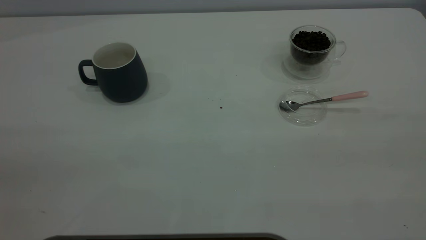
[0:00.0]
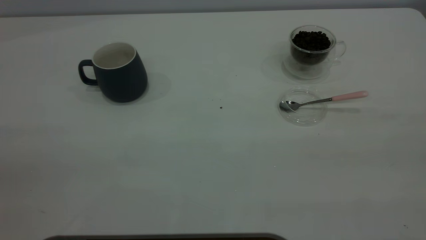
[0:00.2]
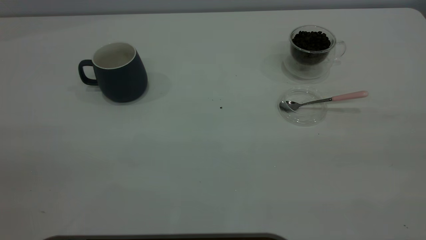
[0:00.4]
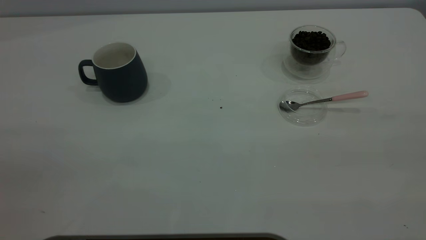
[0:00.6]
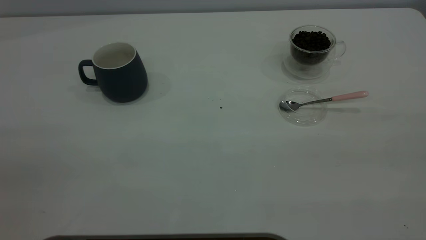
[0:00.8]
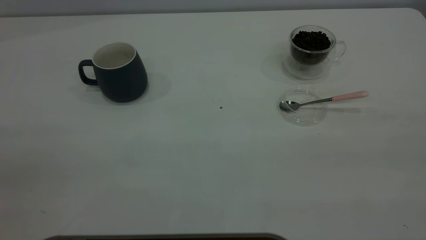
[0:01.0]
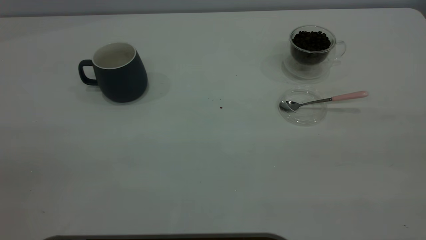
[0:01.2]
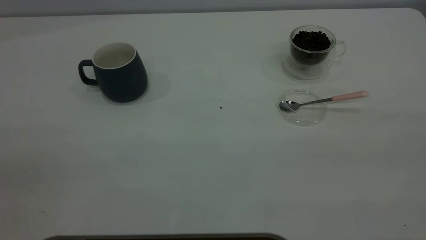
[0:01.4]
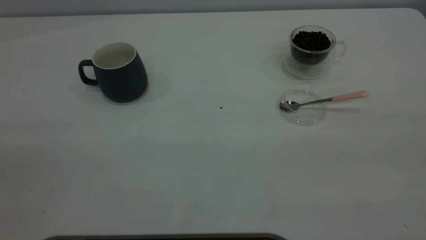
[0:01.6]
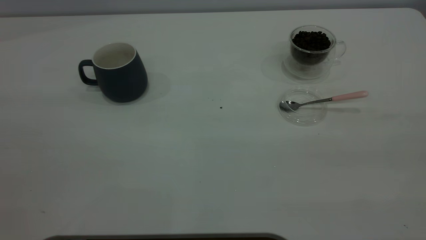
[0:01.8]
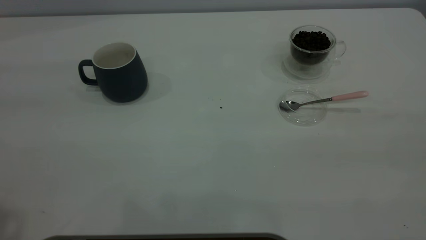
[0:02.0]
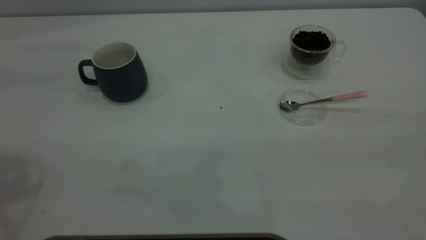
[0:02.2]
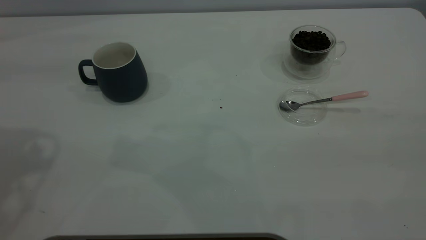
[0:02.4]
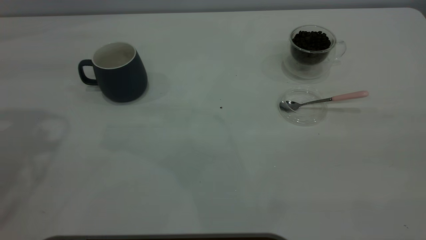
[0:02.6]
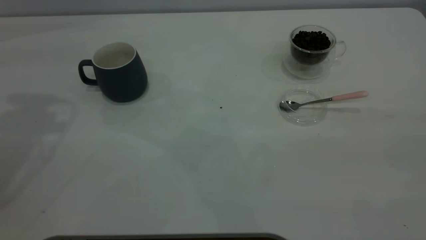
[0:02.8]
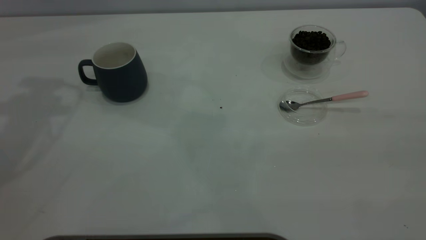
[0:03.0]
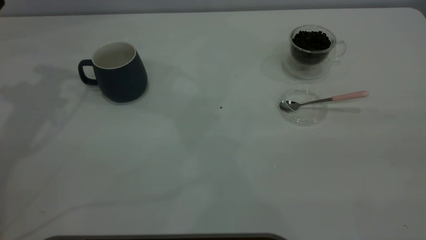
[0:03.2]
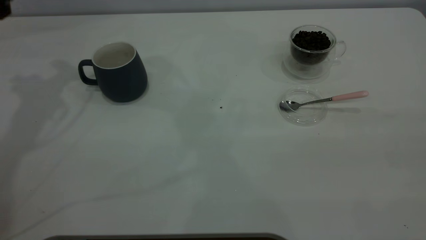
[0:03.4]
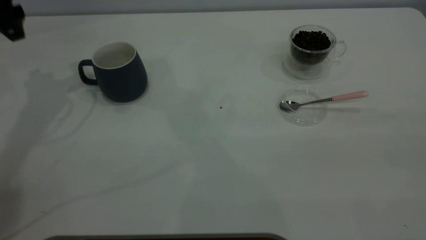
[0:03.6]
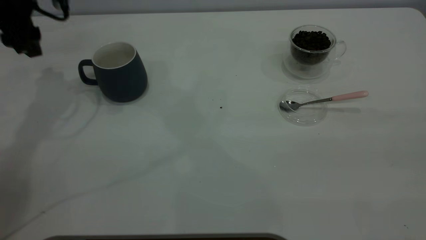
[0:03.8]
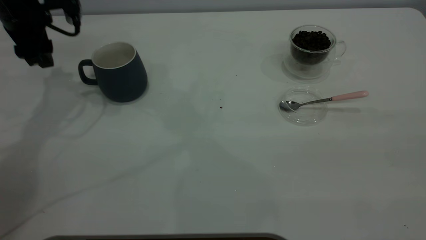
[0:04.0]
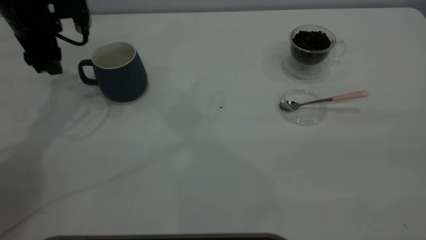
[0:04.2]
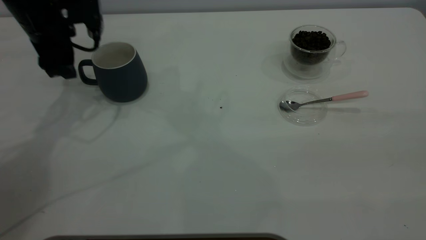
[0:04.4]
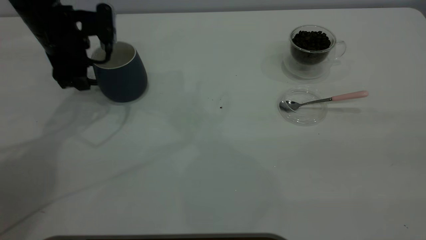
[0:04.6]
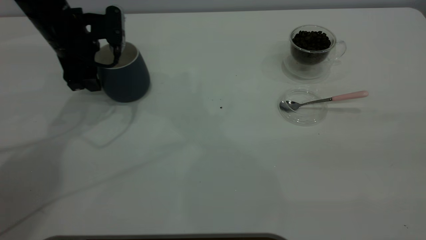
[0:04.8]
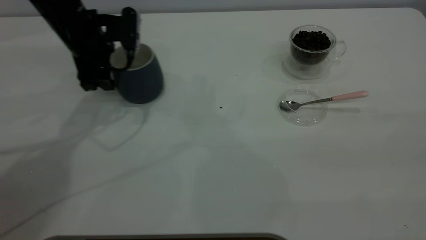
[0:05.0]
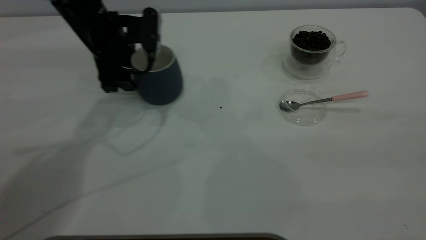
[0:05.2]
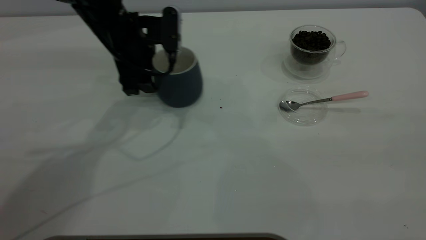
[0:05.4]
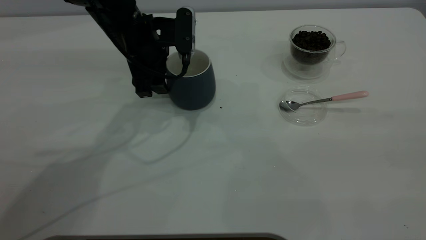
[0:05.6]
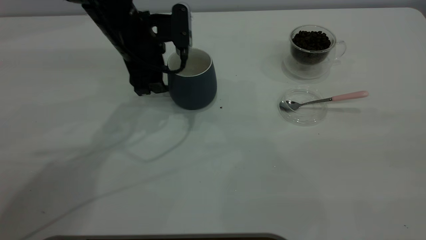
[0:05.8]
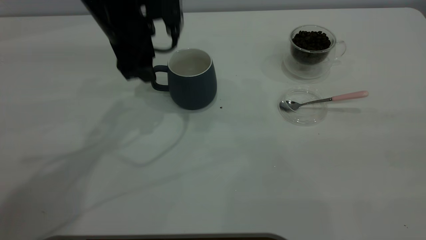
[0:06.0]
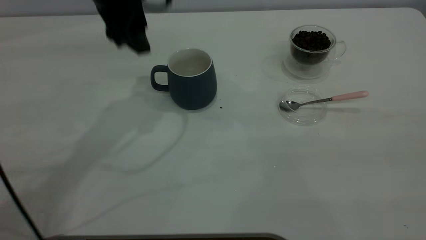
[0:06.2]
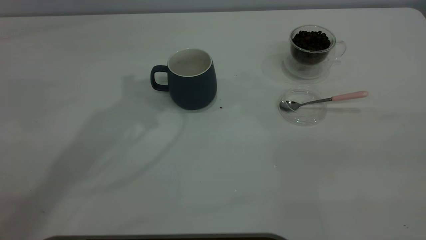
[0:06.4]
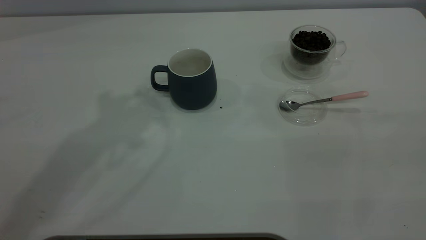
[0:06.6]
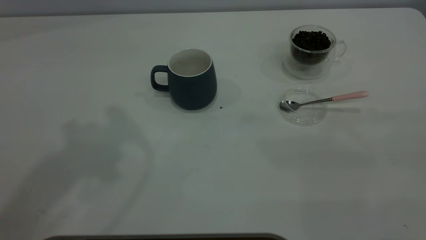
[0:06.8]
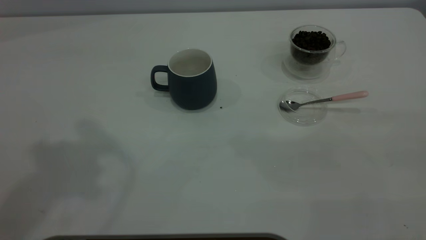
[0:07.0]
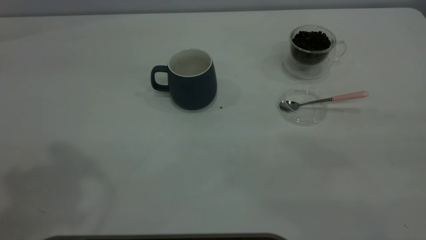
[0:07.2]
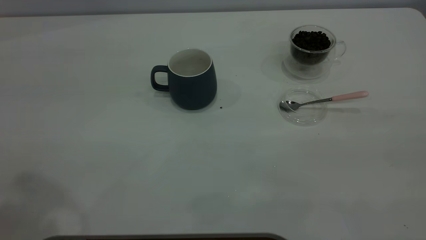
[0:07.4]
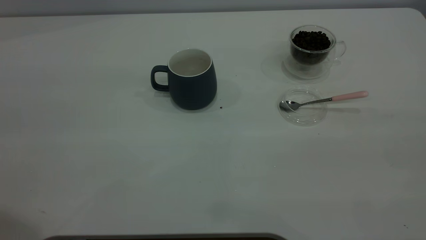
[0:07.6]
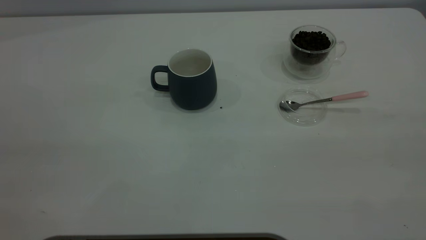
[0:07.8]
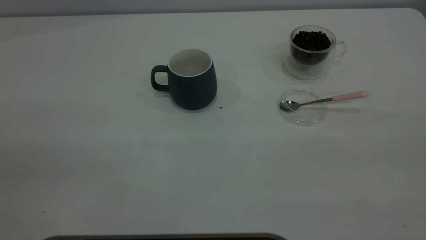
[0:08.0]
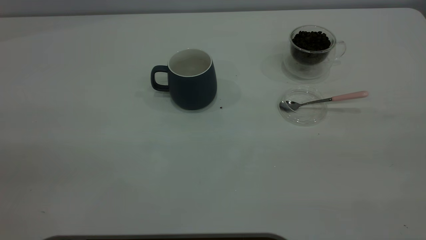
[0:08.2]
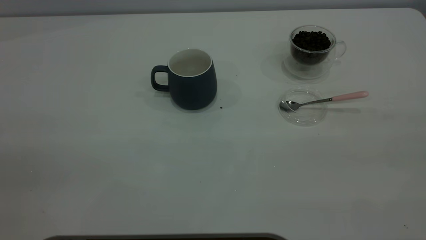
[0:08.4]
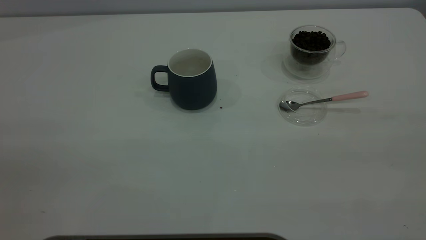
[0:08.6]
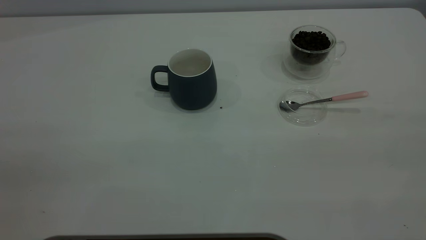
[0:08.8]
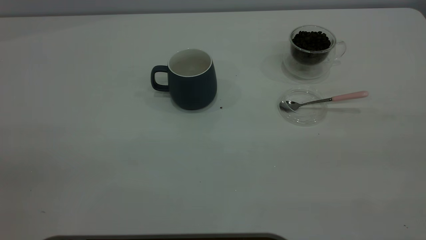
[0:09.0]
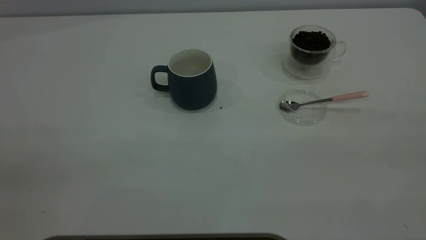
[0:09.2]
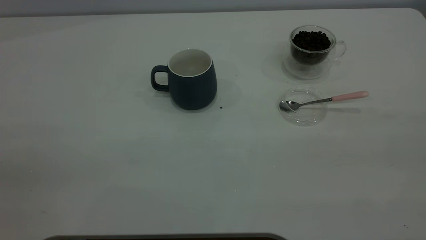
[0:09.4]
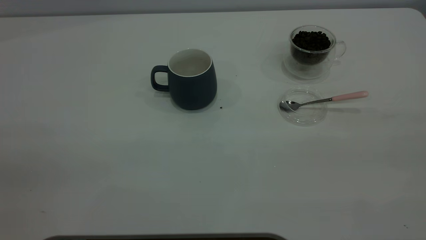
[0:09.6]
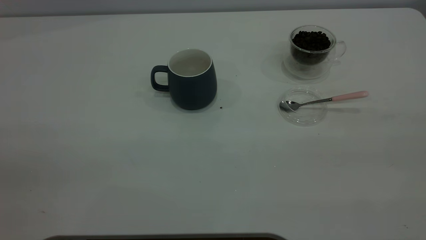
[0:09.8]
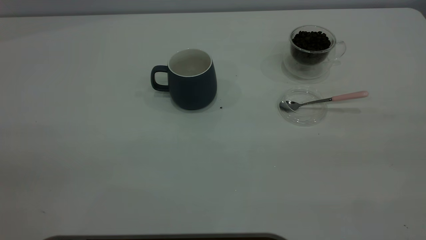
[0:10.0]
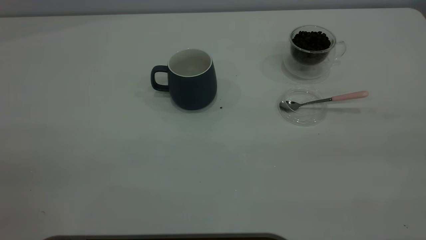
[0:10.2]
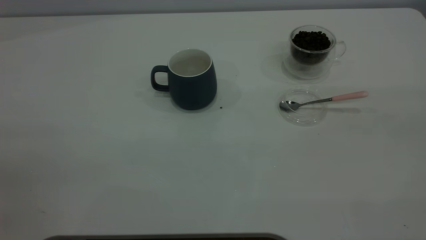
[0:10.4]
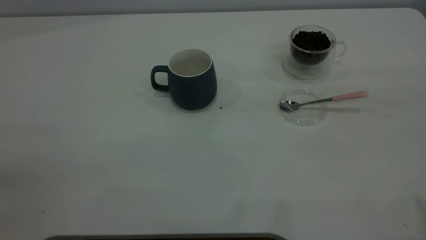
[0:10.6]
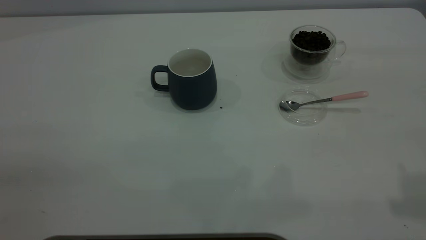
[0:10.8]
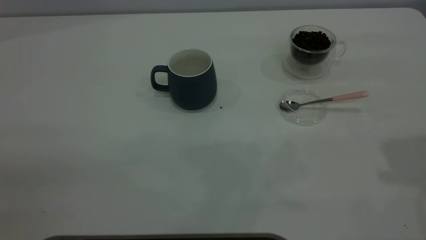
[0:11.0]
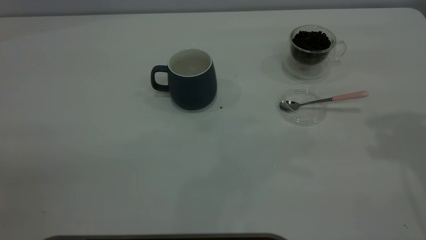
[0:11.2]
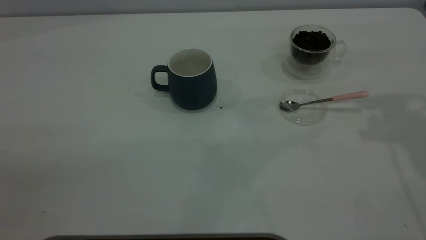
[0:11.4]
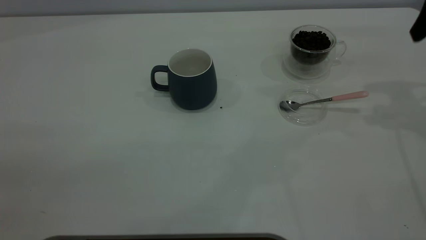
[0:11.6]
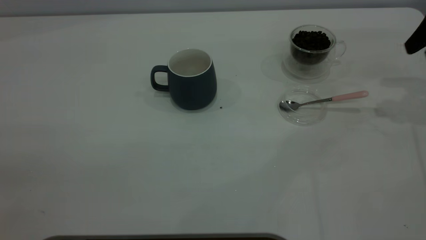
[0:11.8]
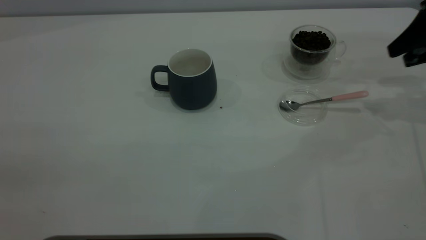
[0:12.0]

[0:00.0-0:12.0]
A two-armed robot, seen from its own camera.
Task of the whole recording: the left gripper place the grey cup in the center of the table, the right gripper take the pink spoon from the cup lid and scoop out the coffee beans from the coffee cup and put them into the grey cup, the right gripper put the spoon back into the cup lid.
Step, 0:00.0 to 0:06.0: Move the cup to the center of view.
0:03.0 to 0:04.4: The left gripper travels downward by approximately 15 cm.
0:04.4 to 0:06.0: The left gripper is displaced to the right by about 10 cm.
0:06.0 to 0:07.6: The left gripper heads backward, upward and to the left, covering some 40 cm.
0:10.4 to 0:12.0: The right gripper heads forward and downward, covering some 40 cm.

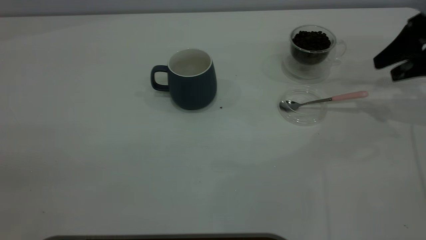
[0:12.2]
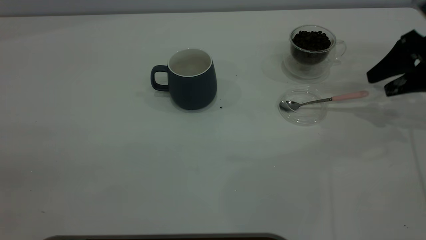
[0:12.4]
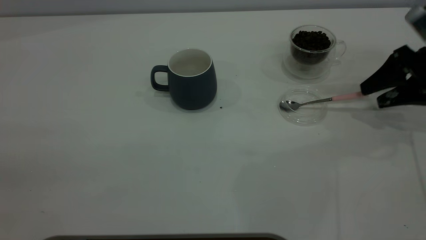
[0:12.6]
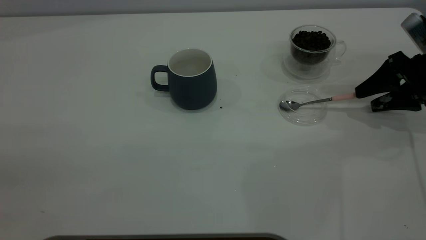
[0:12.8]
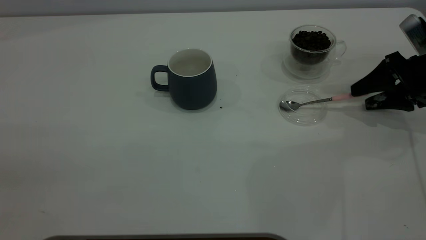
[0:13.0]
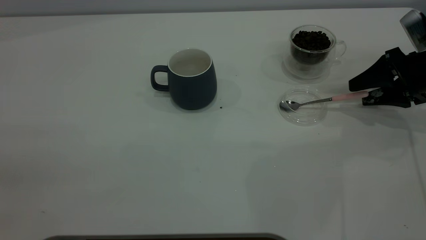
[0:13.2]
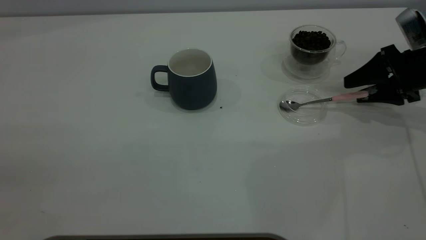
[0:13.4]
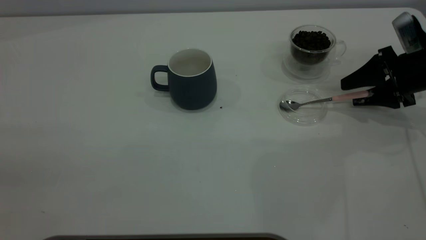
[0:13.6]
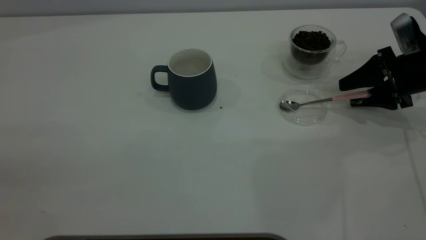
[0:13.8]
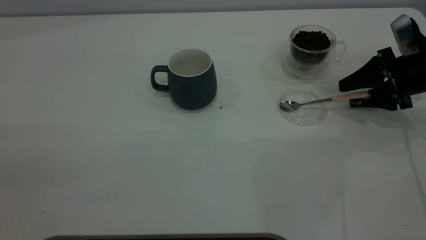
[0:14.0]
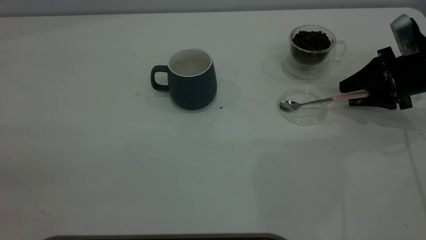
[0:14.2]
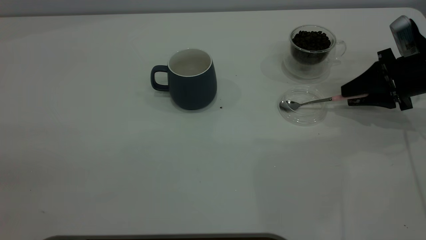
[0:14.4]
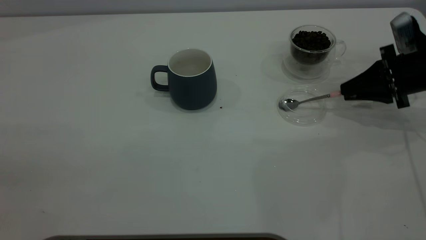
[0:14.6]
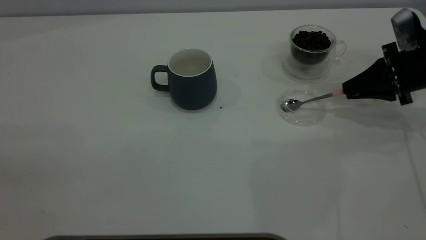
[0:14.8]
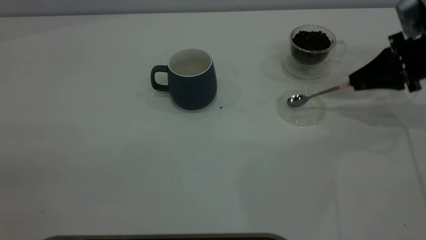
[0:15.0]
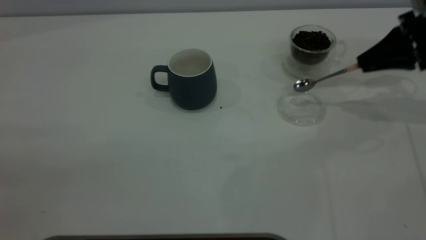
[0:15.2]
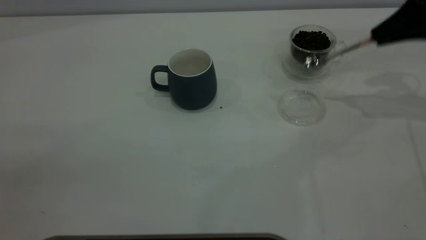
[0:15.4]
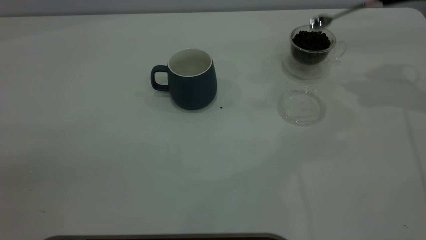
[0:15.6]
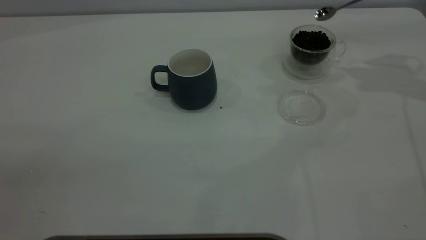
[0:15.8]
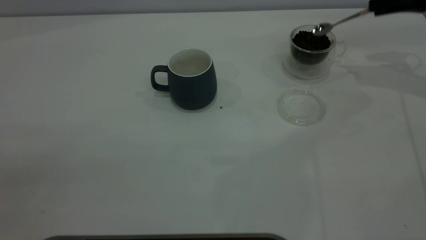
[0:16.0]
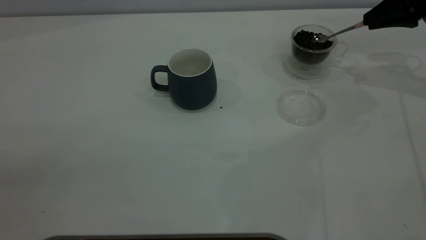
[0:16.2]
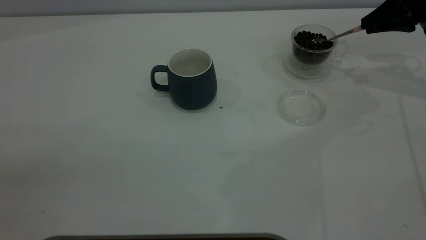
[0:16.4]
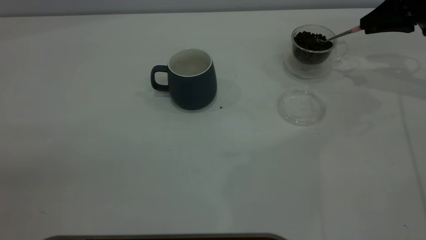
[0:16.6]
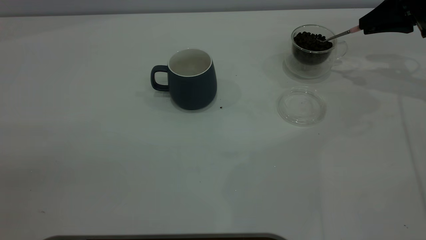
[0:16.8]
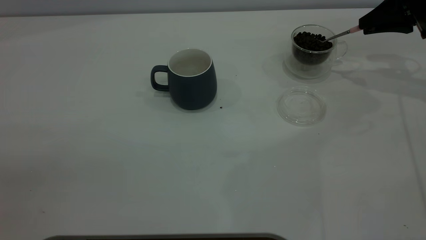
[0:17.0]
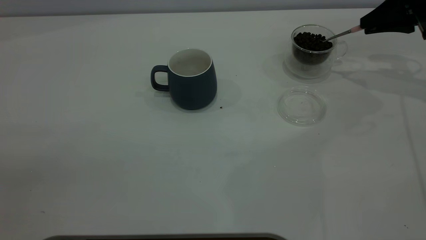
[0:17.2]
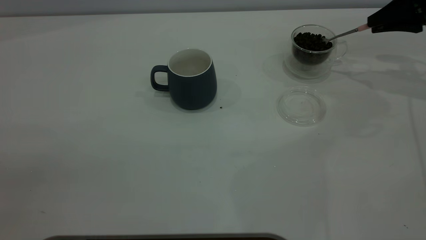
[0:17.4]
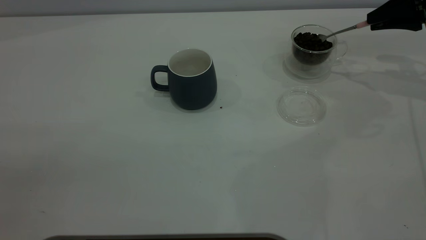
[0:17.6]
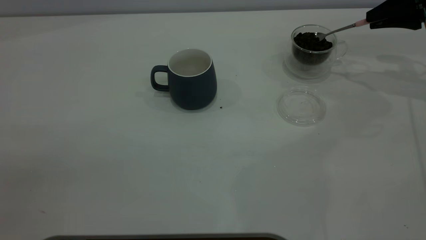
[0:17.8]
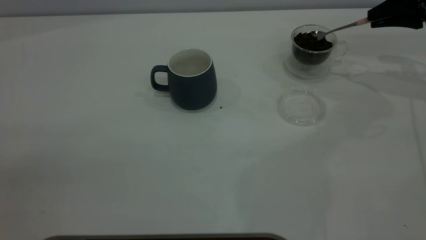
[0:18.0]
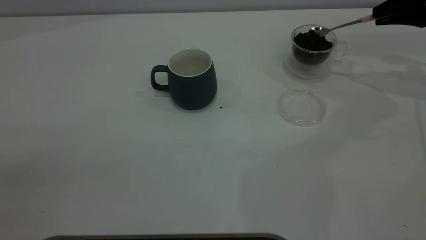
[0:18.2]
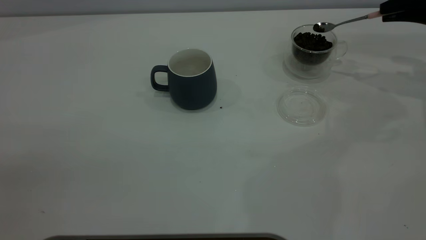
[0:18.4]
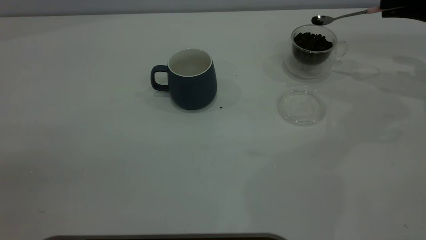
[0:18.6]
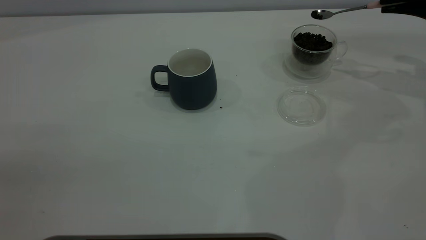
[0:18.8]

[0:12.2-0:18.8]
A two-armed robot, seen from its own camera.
Task of the whole recording: the left gripper place the grey cup in the center of the table, the right gripper take the pink spoon from the cup lid and scoop out the coffee beans from the coffee cup and put them into the grey cup, the right gripper put the spoon back into the cup lid.
Step, 0:12.2 to 0:15.2: Pick up the spoon.
0:12.2 to 0:13.8: The right gripper heads downward, covering some 5 cm.
0:13.8 to 0:15.4: The right gripper shifts about 15 cm upward, and closes.
0:15.4 to 0:17.2: The right gripper shifts some 5 cm forward.
0:17.2 to 0:18.8: The grippers stay close to where they were, moving slightly.
